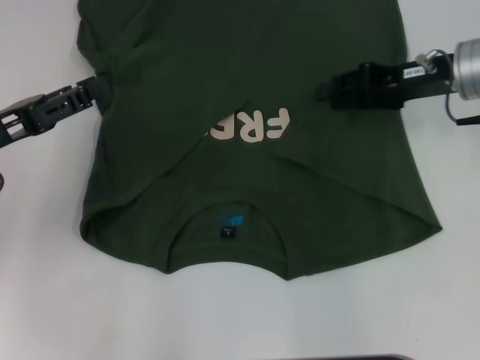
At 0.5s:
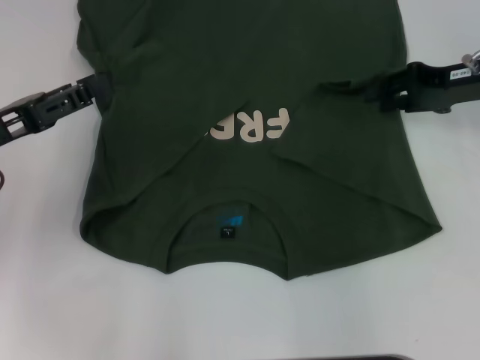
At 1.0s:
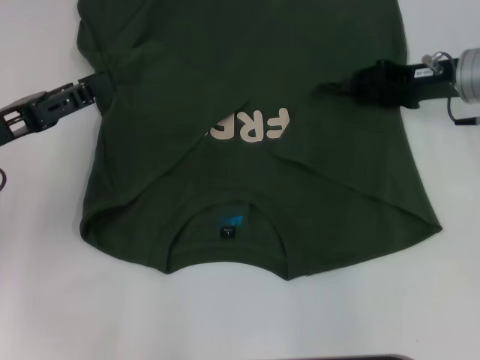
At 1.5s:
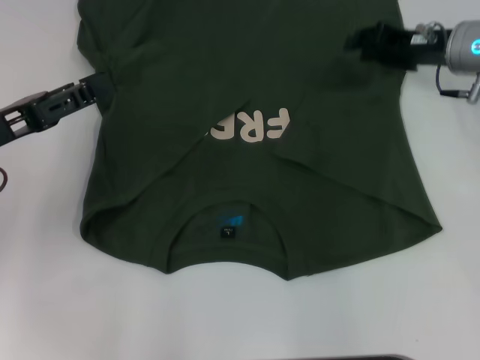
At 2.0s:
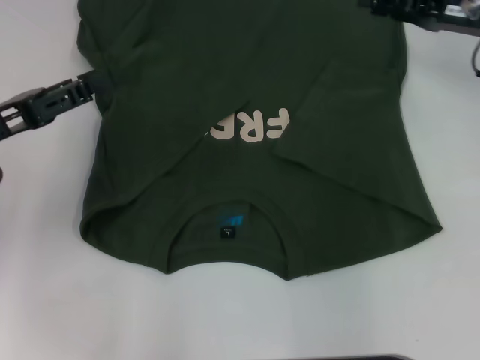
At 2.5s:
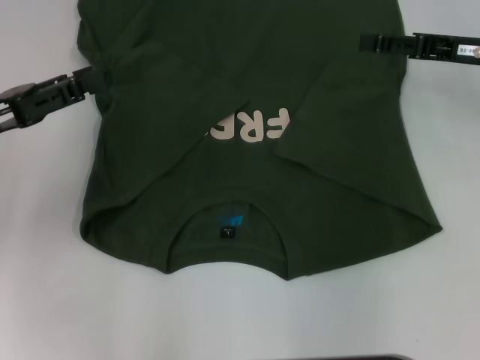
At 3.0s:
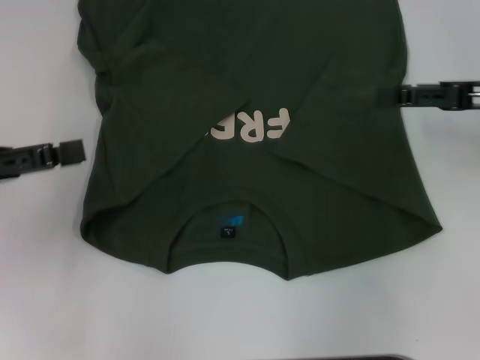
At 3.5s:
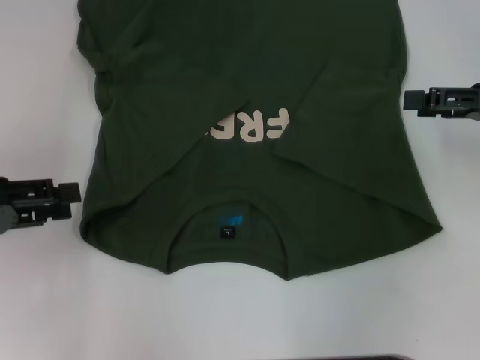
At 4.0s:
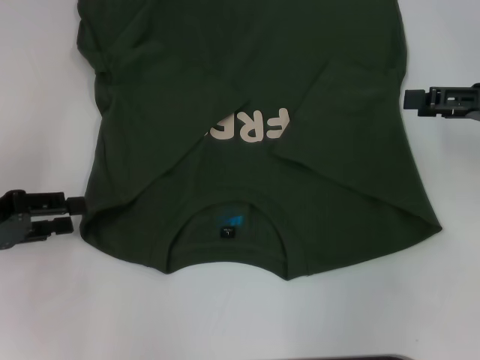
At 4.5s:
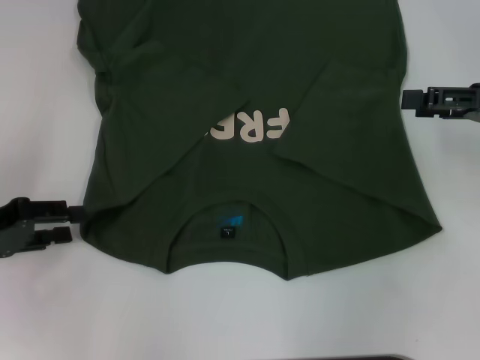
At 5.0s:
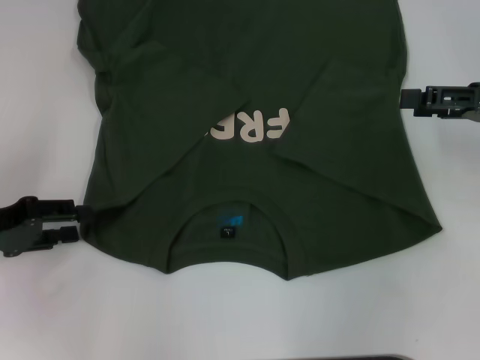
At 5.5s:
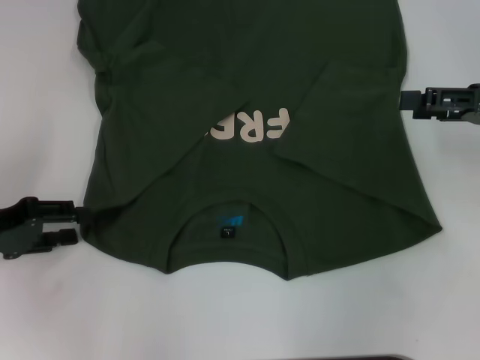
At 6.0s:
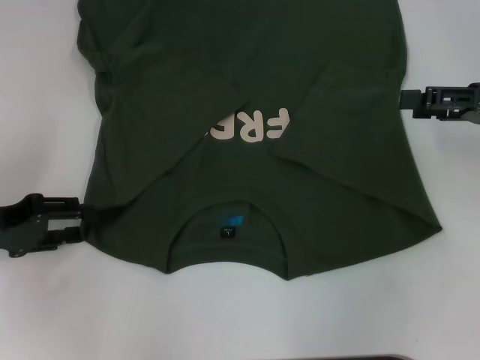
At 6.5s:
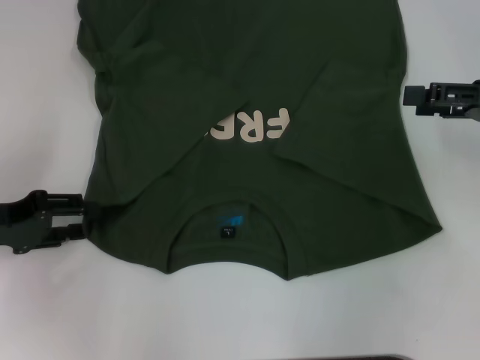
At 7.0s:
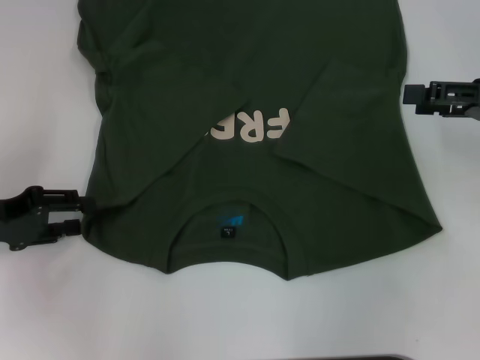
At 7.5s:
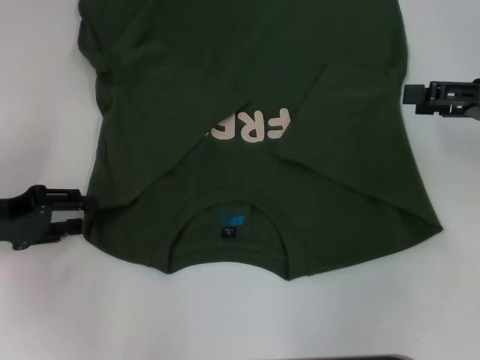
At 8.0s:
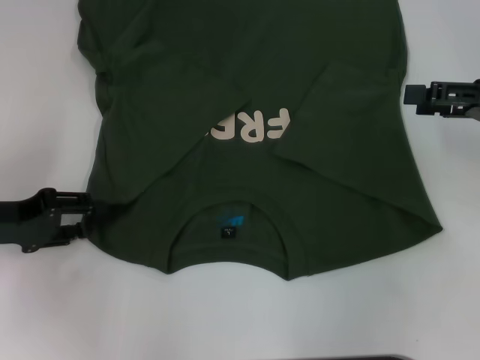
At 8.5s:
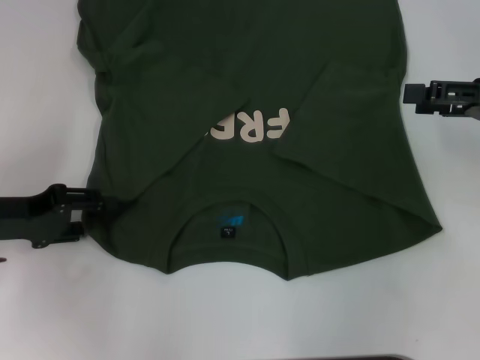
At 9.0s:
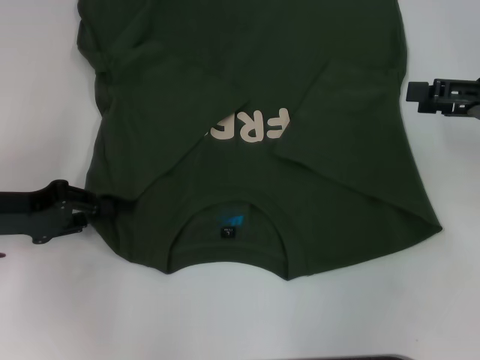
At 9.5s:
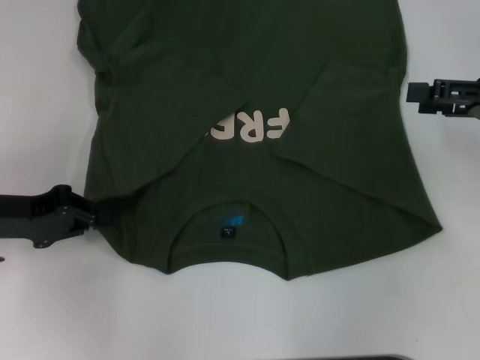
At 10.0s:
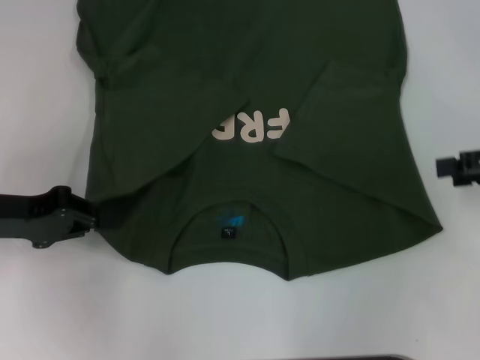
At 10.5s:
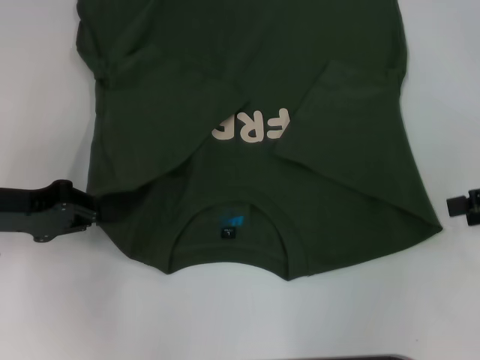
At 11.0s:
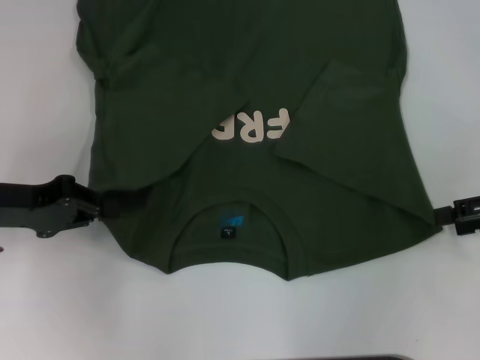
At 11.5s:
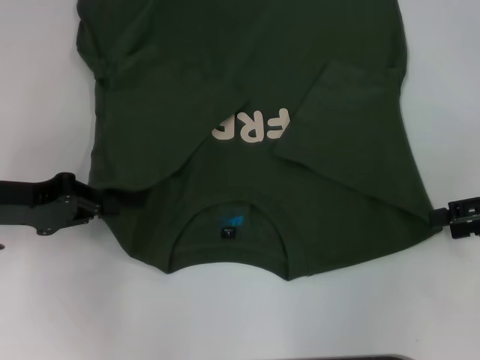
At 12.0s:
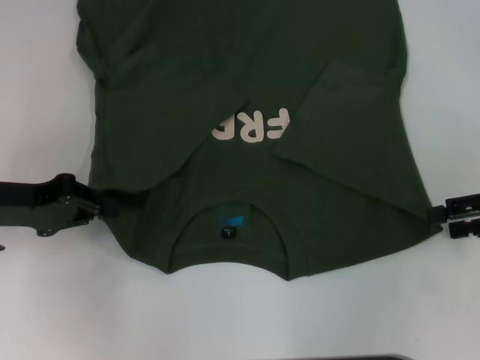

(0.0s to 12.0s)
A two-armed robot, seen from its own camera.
Step, 0.0s - 2.0s: Fold the bottom right sleeve with your right hand.
Step, 2.5s - 10.0s: Grab the bottom left corner with your left hand.
2.0s - 4.0s: The left gripper moves some 5 cm. Meanwhile the right gripper goes roughly 10 cm backward and to the right, and opens.
4.0s - 6.0s: The grippers move only a little.
6.0s - 8.0s: Neither gripper changes place.
8.0s - 10.0s: The left gripper closes.
10.0s - 12.0s: The grippers move only a little.

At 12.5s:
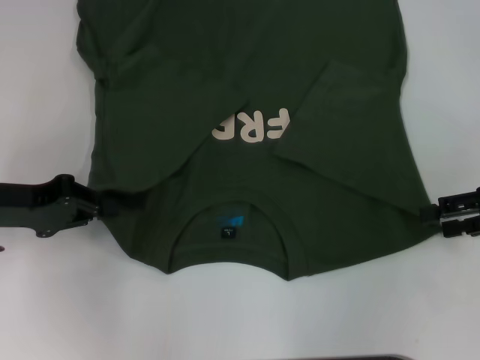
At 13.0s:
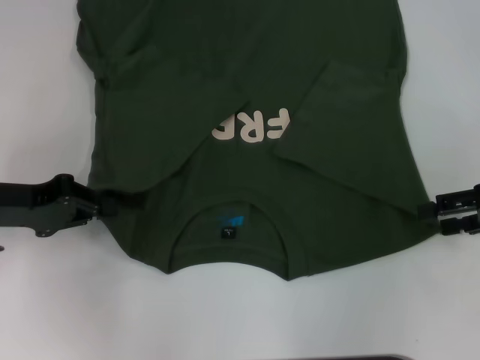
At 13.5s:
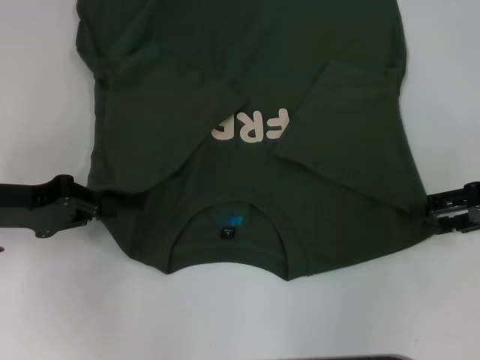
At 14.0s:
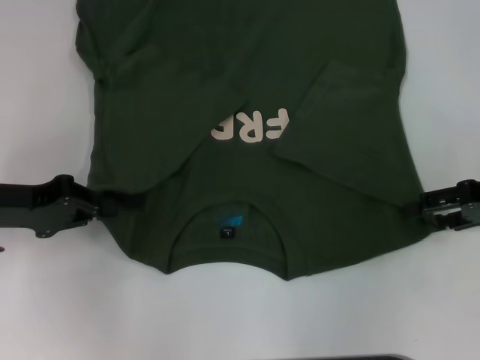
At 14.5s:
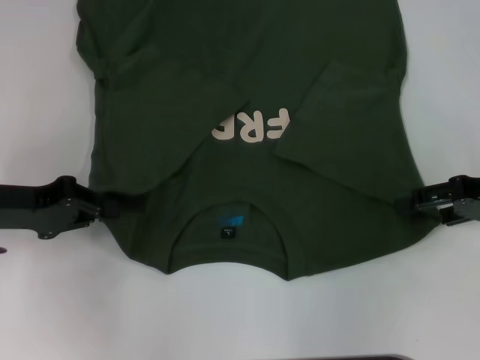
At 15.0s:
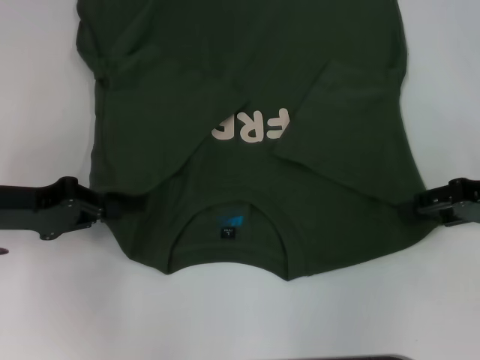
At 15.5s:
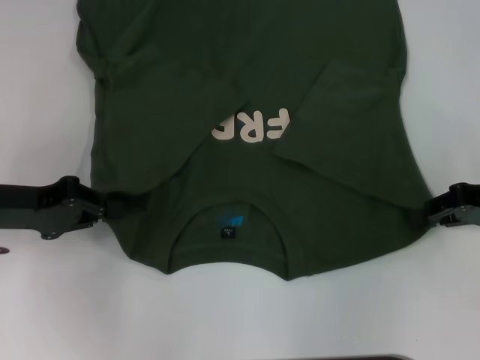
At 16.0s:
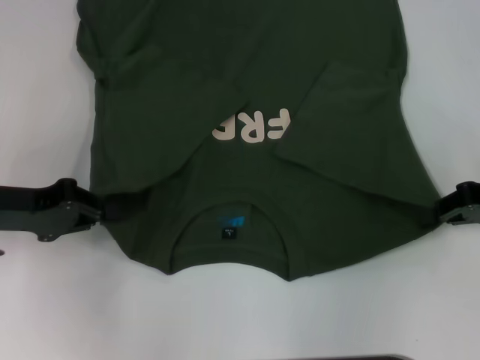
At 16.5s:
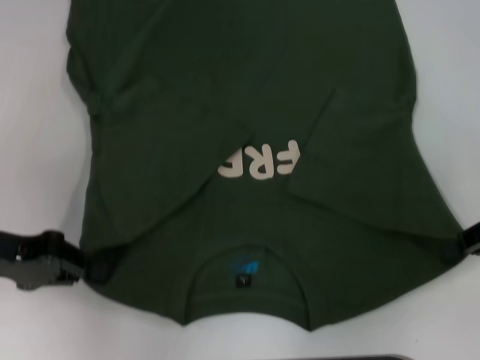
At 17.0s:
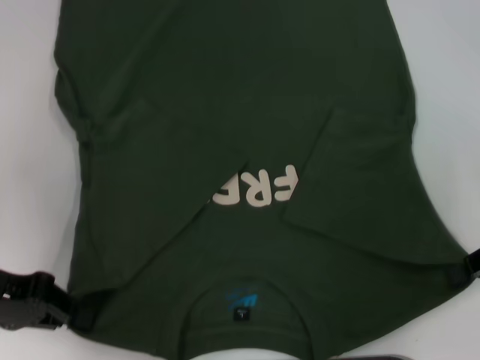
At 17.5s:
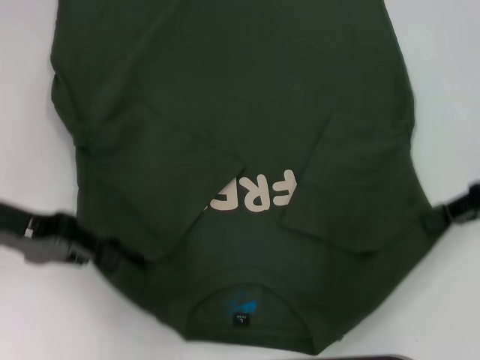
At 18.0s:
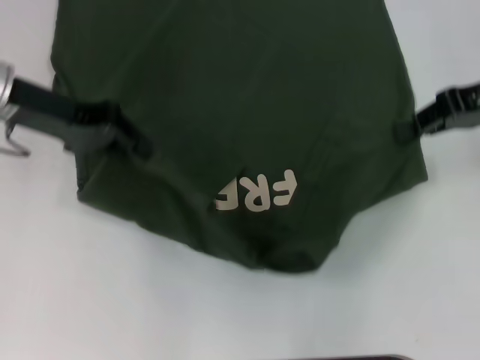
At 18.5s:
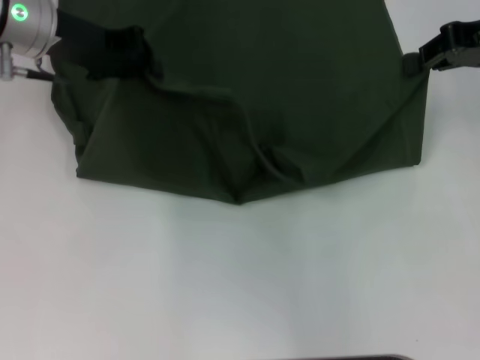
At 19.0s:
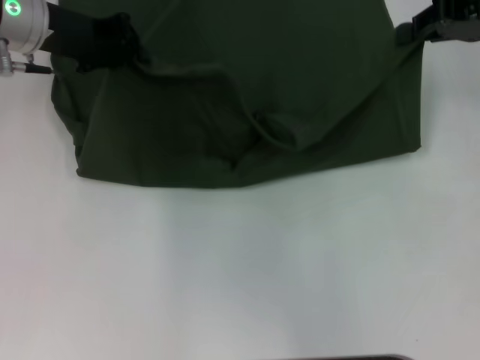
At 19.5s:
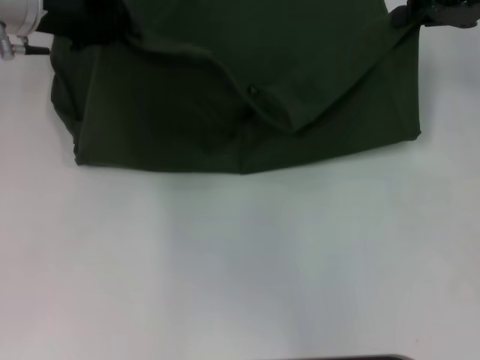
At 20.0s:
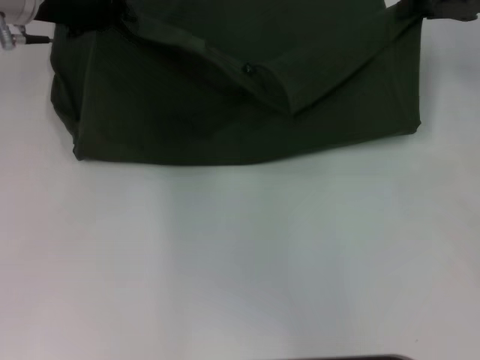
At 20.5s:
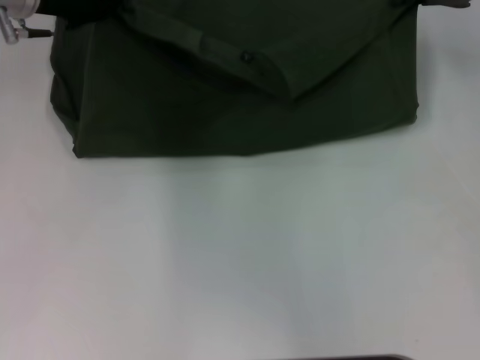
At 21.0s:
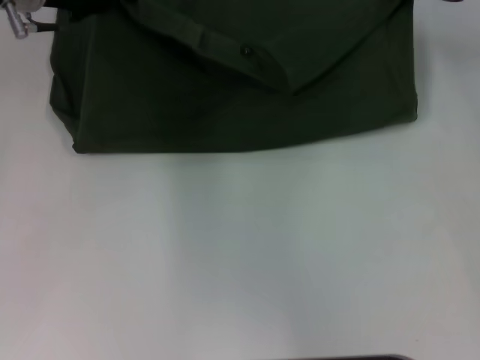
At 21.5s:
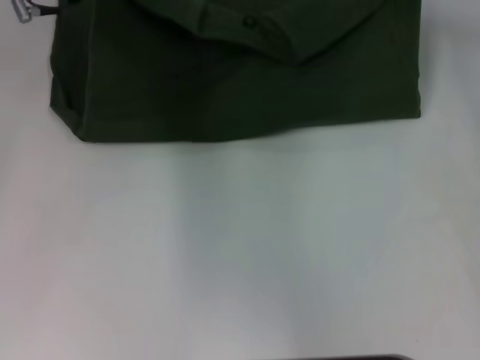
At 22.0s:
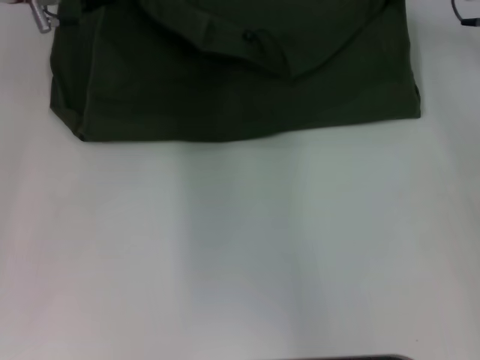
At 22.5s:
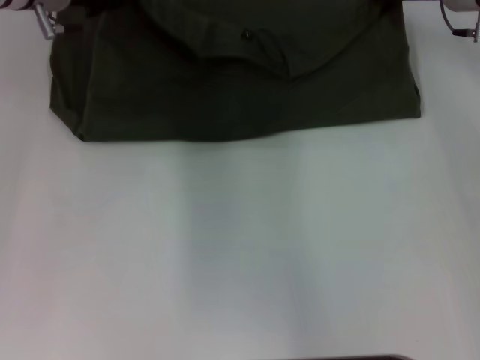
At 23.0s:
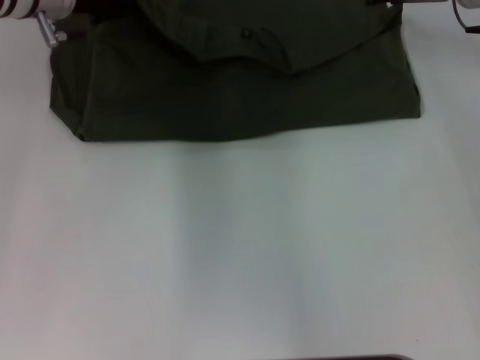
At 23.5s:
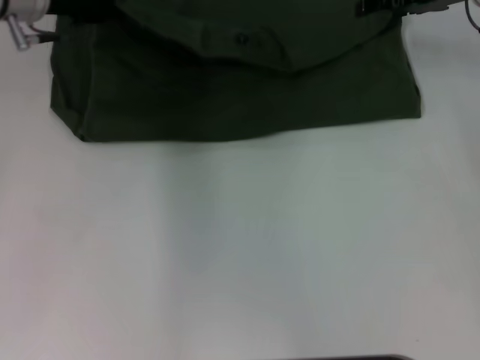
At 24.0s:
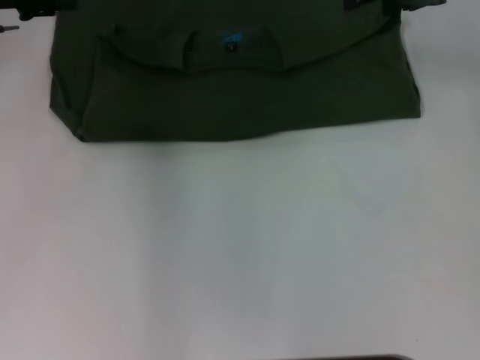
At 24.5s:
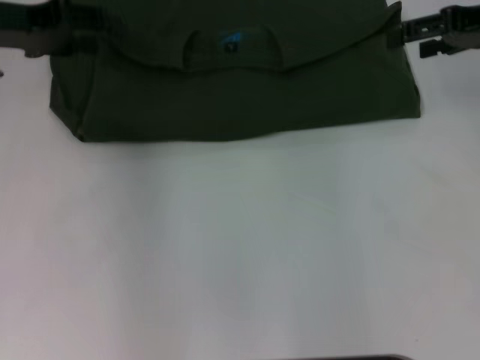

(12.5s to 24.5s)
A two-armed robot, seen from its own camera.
Step, 12.5s - 15.5s: Grab the bottom right corner with your right hand.
Step, 16.0s - 23.5s: Fold the clothes with your left hand.
Step, 16.0s - 23.5s: Fold the clothes with your right hand.
12.5s - 14.5s: The grippers move only a little.
14.5s - 16.5s: The right gripper closes.
16.5s - 18.5s: The right gripper goes roughly 15 cm forward and upward; the left gripper heads forward, to the right and upward, covering about 20 cm.
18.5s - 20.5s: The right gripper moves about 5 cm.
20.5s - 22.5s: The right gripper moves about 5 cm.
22.5s - 24.5s: The left gripper moves to the left and backward, approximately 10 cm, and opens up. The right gripper goes roughly 10 cm to the right and backward, and opens its fingers.

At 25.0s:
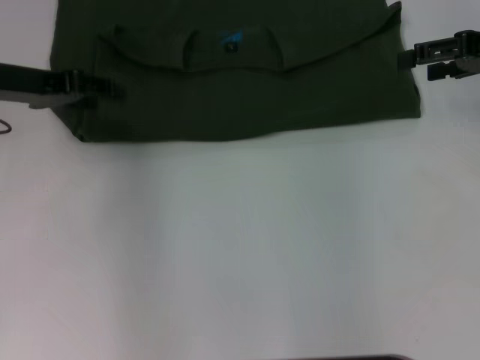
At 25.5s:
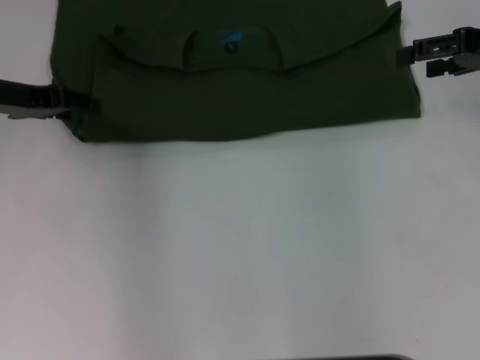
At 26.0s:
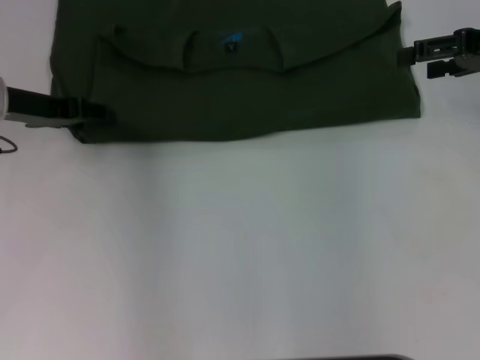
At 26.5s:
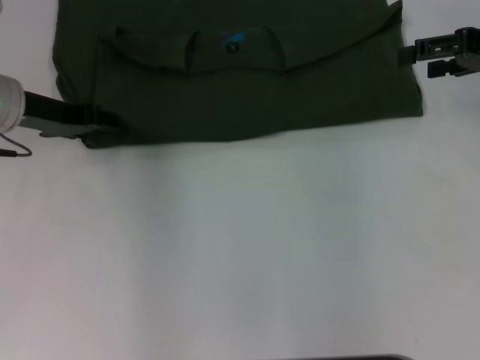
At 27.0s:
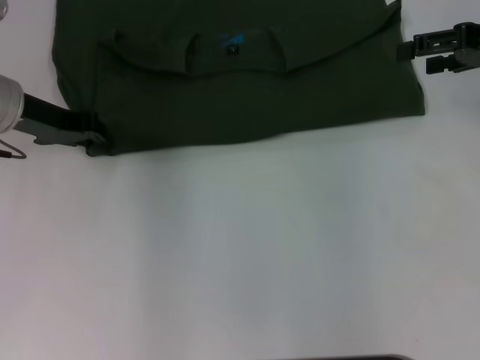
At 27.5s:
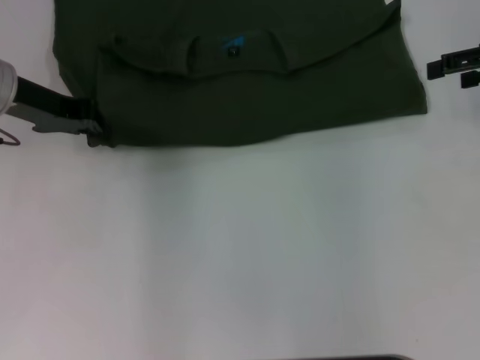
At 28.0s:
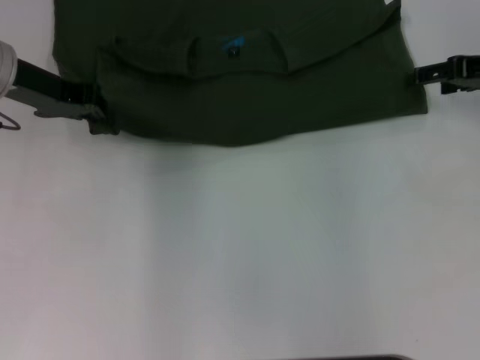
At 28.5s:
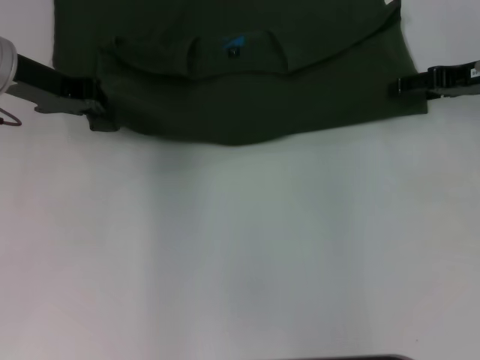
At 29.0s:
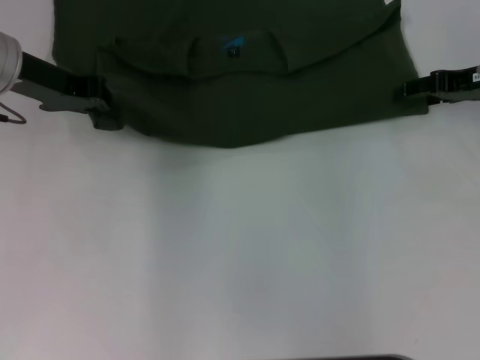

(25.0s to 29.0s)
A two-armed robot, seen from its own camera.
25.0s - 27.0s: The left gripper closes its fingers.
27.0s - 29.0s: The left gripper closes its fingers. The right gripper travels downward by approximately 5 cm.
